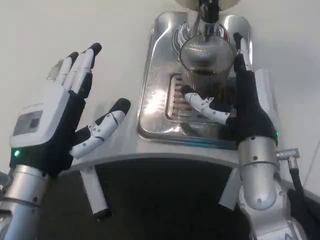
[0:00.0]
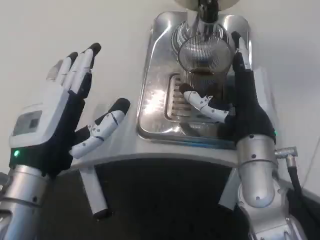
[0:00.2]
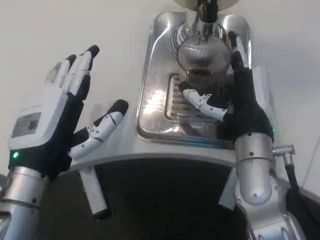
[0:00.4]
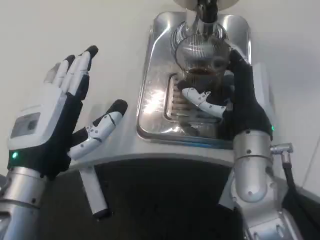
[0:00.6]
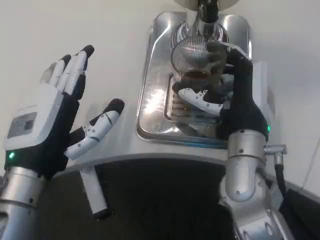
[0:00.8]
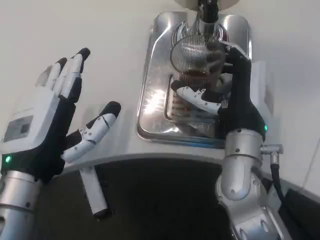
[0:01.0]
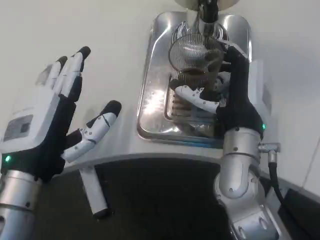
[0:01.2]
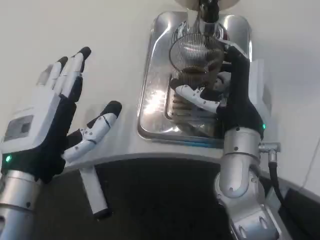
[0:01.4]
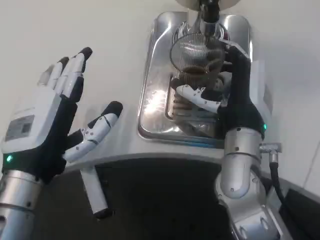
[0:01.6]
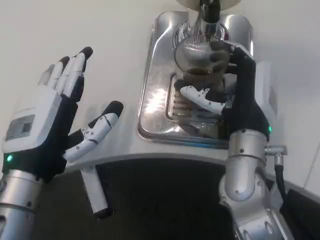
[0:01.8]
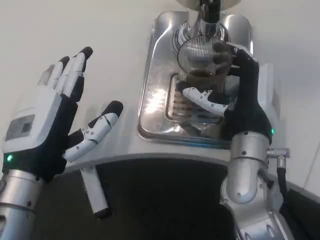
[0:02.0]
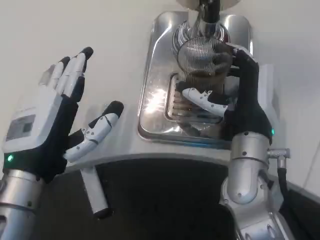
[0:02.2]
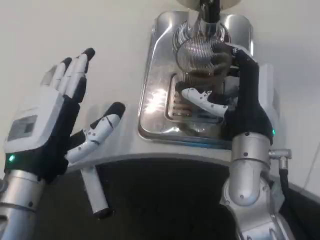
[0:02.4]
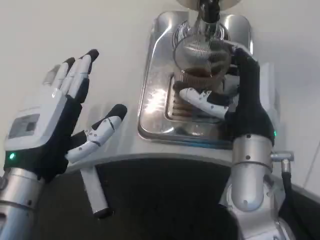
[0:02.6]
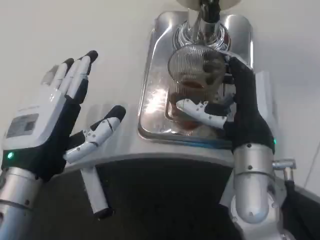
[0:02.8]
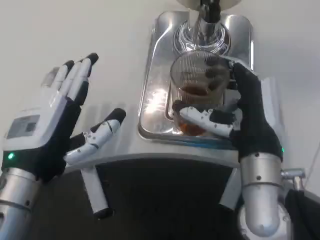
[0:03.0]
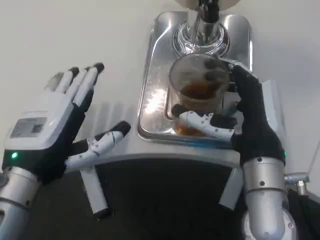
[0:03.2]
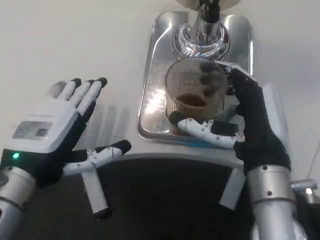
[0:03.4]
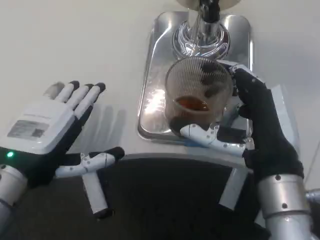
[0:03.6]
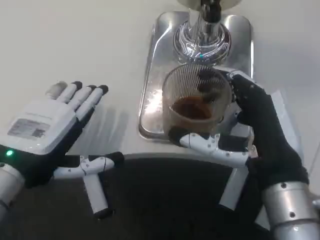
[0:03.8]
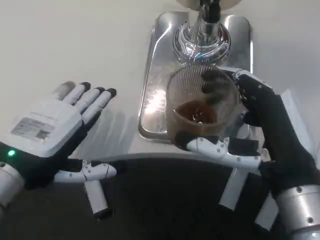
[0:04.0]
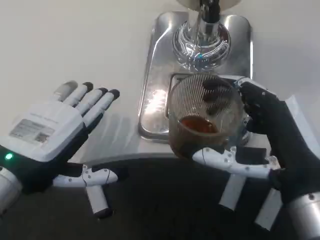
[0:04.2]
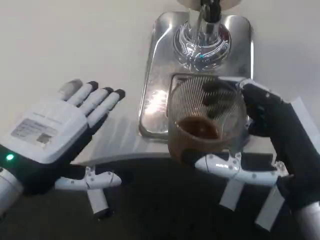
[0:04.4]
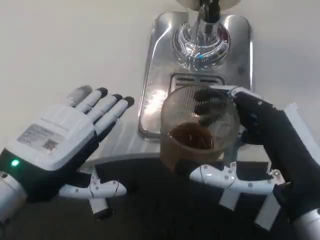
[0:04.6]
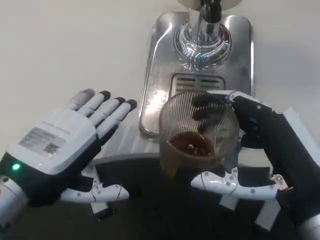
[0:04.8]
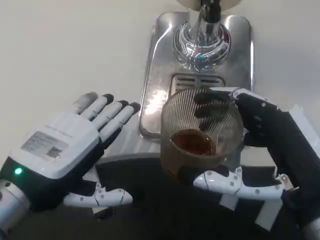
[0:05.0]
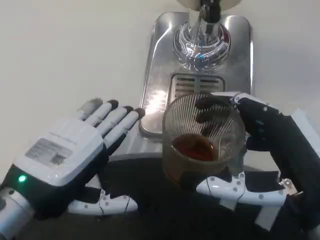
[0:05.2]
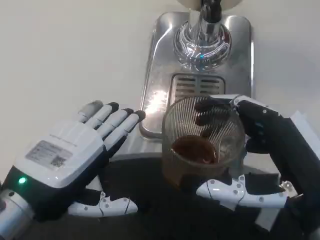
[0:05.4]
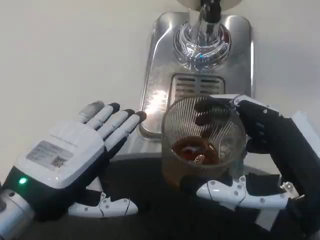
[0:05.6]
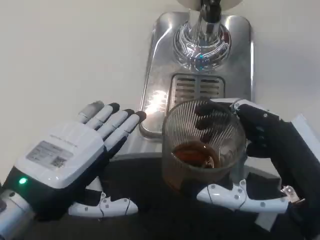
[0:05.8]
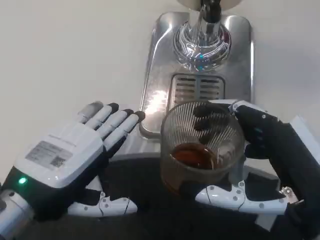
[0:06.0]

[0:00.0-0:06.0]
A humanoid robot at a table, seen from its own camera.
Task of the whole recording: Grasp the cup under the faucet to collect the drink, then remove the cup.
0:01.6 to 0:03.0: The right hand changes place by some 5 cm.
0:03.0 to 0:04.4: The right hand shifts about 10 cm backward and to the right.
